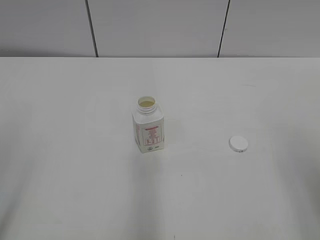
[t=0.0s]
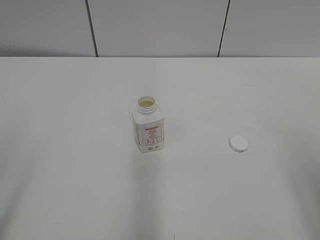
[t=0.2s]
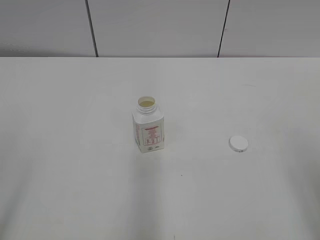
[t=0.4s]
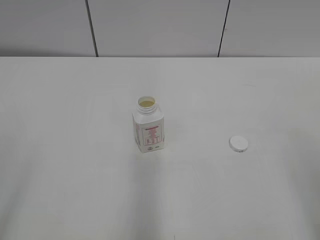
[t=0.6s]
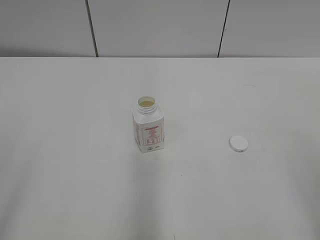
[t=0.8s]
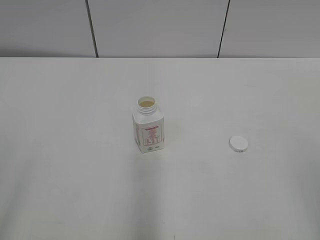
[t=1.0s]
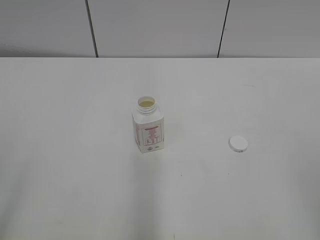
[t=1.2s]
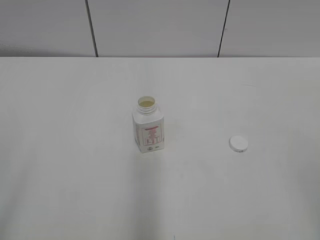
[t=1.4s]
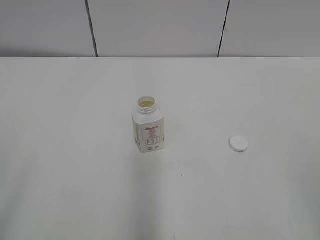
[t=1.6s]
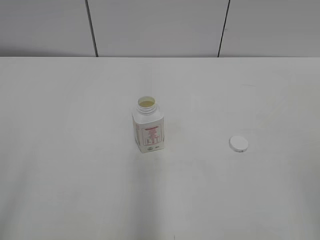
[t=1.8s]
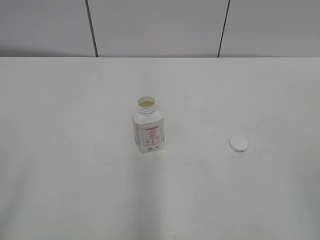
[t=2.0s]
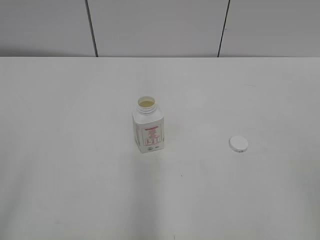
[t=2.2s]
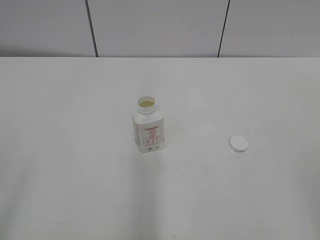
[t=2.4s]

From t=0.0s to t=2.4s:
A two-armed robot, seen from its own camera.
From t=1.2s to t=2.4s: Neither gripper changes place.
